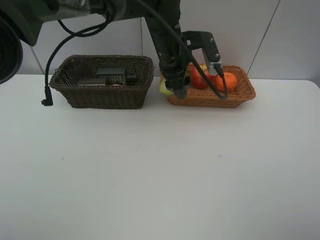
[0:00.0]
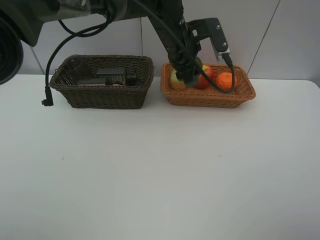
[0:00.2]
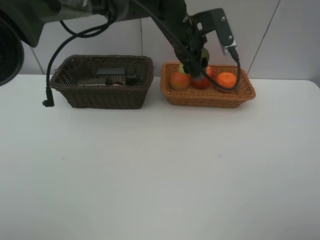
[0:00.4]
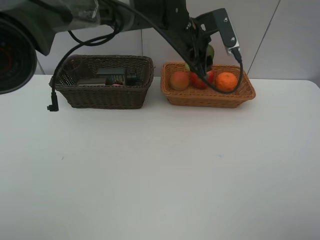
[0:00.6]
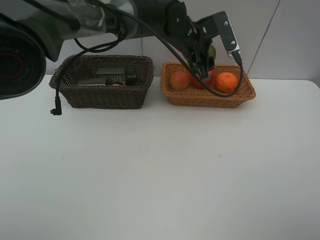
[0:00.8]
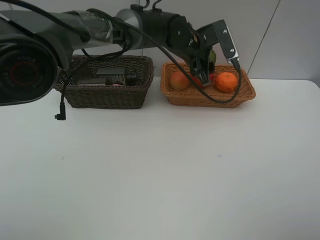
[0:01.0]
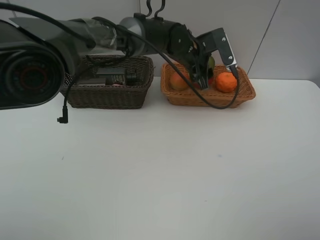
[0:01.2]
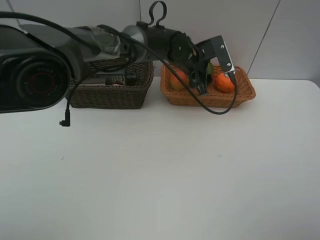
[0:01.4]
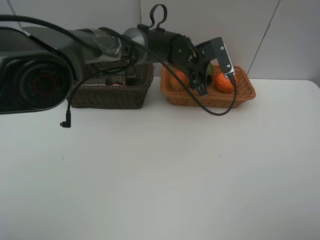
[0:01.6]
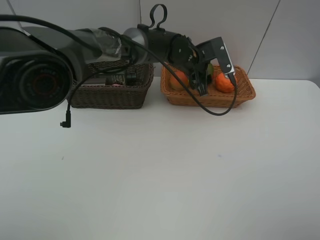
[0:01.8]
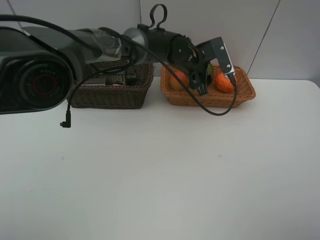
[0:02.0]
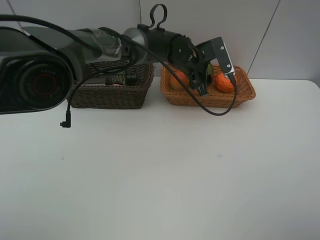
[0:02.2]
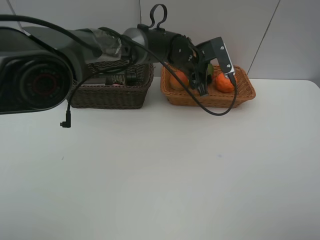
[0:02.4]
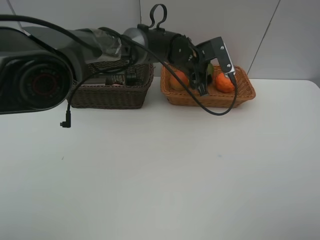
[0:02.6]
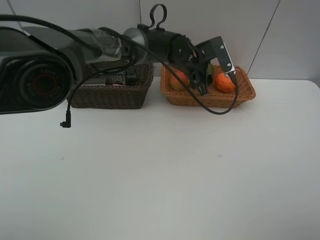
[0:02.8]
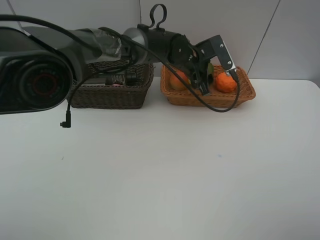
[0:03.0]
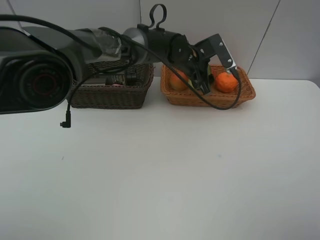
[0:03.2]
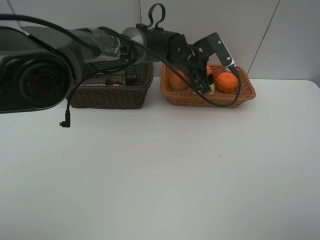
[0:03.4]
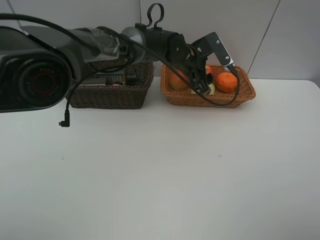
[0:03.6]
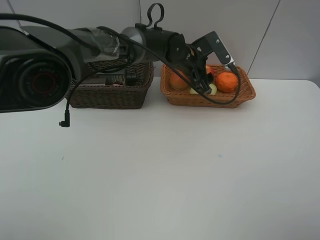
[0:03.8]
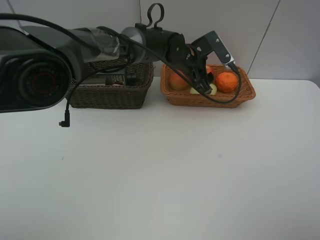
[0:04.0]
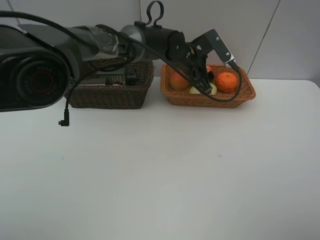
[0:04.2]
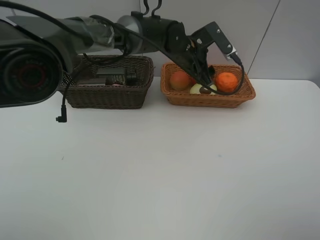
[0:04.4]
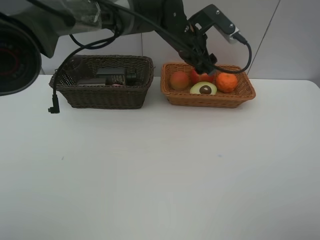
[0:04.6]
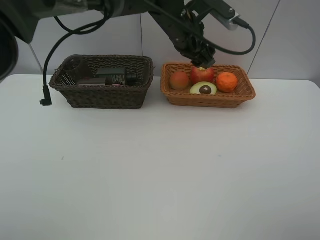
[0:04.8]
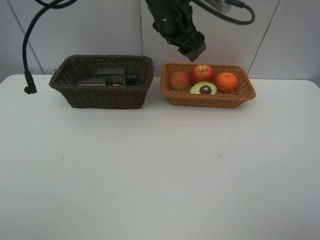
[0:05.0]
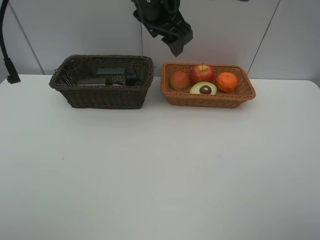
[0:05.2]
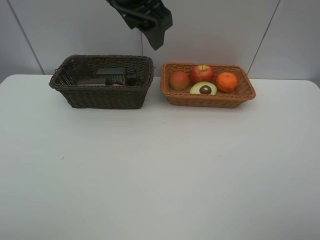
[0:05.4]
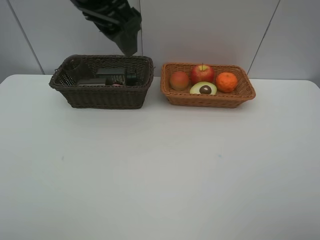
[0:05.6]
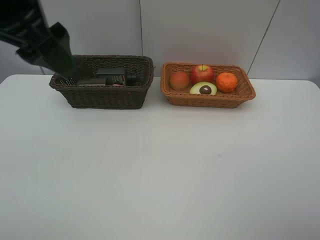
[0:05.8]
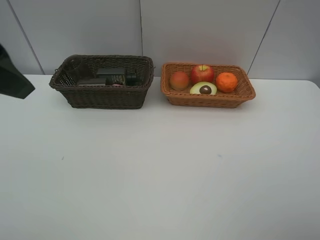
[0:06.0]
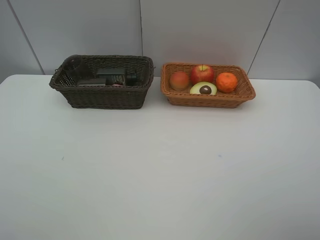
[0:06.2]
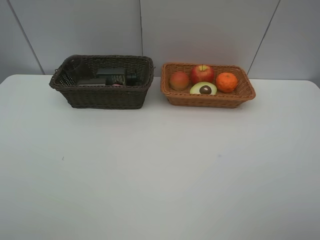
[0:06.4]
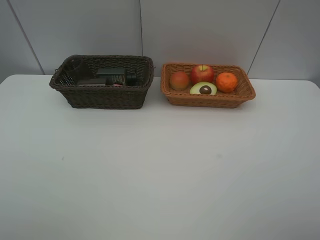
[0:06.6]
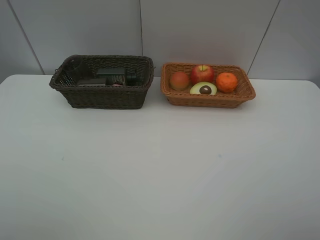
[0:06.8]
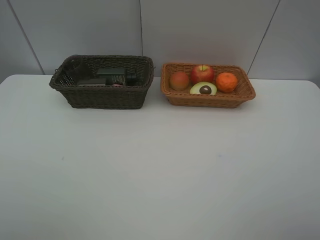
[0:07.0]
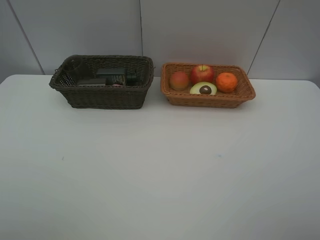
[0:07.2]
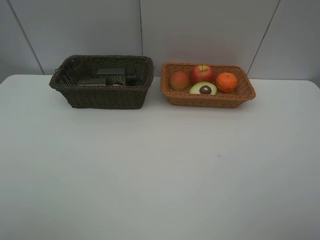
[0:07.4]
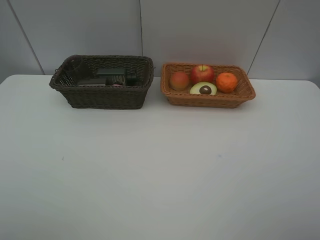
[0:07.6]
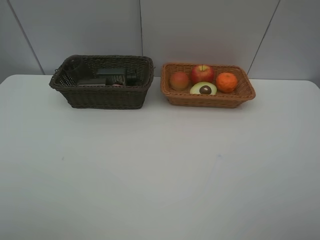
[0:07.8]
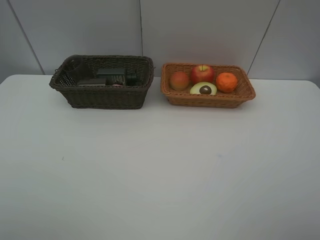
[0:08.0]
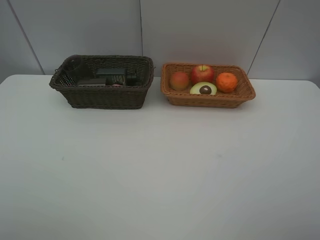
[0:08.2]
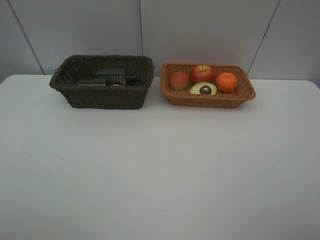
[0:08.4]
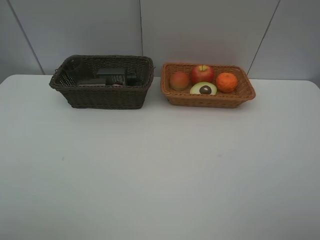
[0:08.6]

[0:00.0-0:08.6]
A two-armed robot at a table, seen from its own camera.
Task of the whole recording: Place multiple objects separately in different baskets.
Step, 0:00.0 to 0:03.6: Place the avocado in the light basket with left gripper.
0:00.0 to 0:01.4: The left gripper is displaced downward by roughly 5 cm.
0:01.4 to 0:02.8: Both grippers stay about where they are.
0:02.8 to 0:04.4: There are only small adjustments of the grippers.
0:04.4 to 0:05.8: The left gripper heads to the left, backward and upward, covering about 35 cm.
0:05.8 to 0:07.2: The left gripper is displaced backward, to the left and downward by roughly 25 cm.
